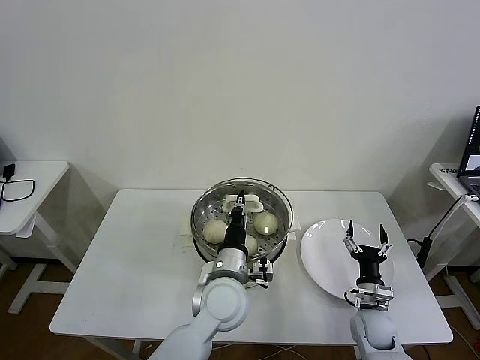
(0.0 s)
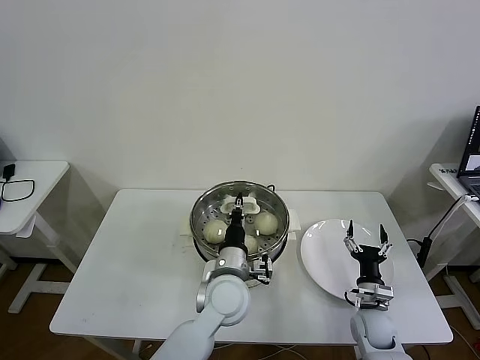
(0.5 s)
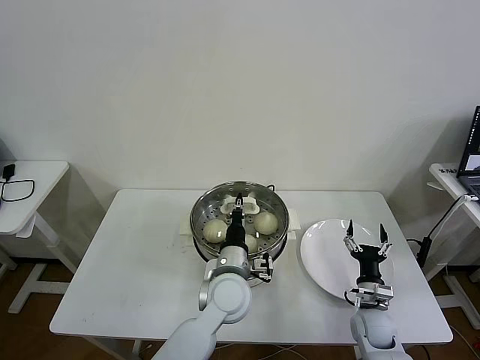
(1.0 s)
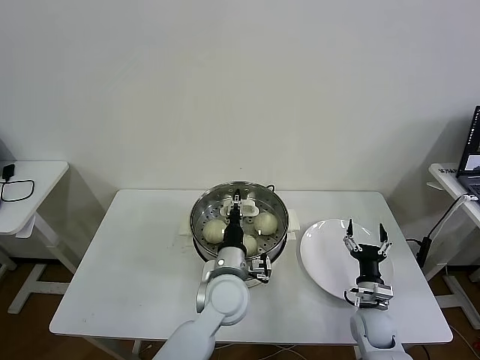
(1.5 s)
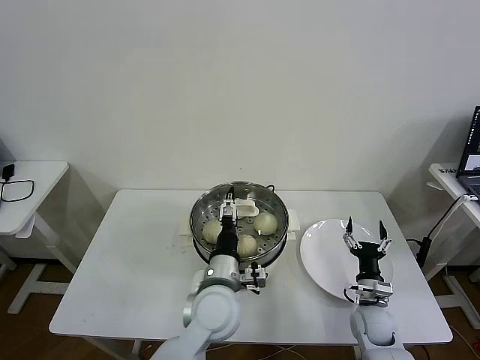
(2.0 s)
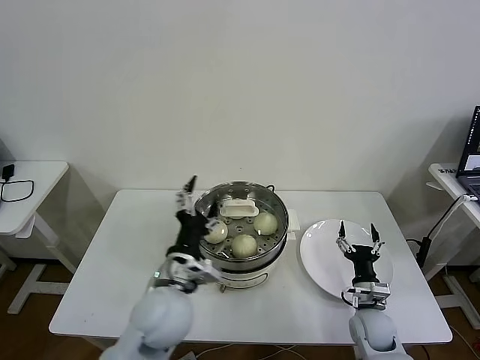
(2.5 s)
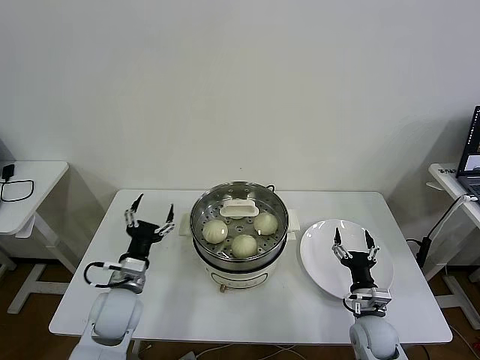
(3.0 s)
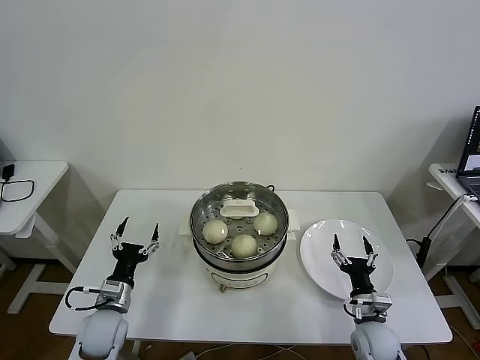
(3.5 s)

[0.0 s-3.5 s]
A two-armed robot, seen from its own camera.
Task of the whole recording: take steamed baozi put them in steamer then cover it.
0.0 to 2.0 s: The left gripper opens its fingers.
2.0 to 3.5 s: The left gripper goes some 25 cm to the left.

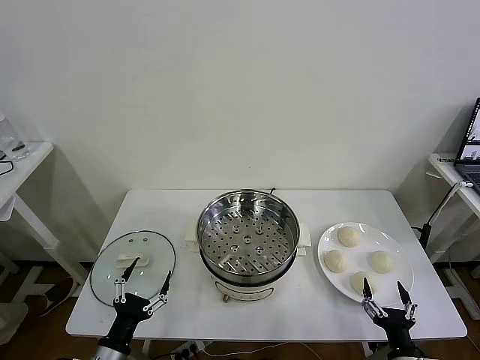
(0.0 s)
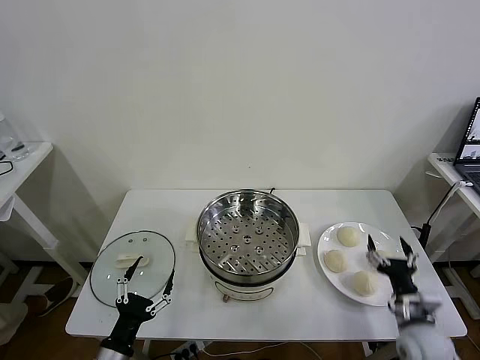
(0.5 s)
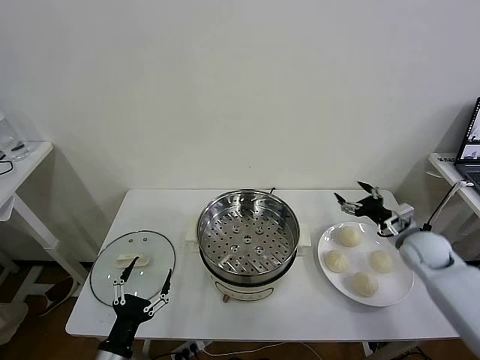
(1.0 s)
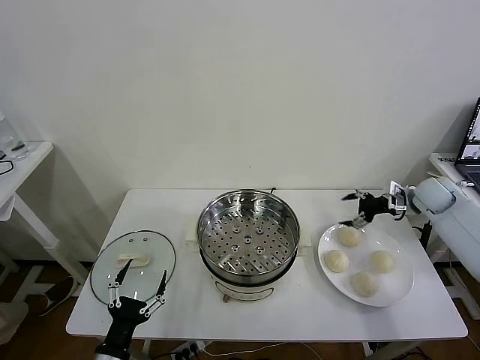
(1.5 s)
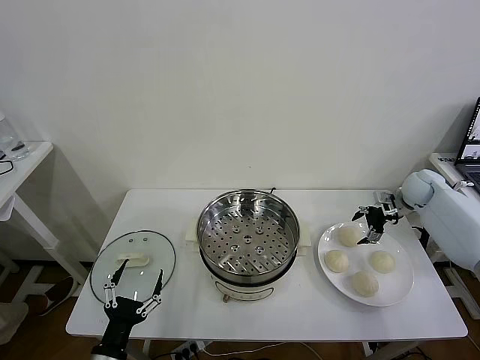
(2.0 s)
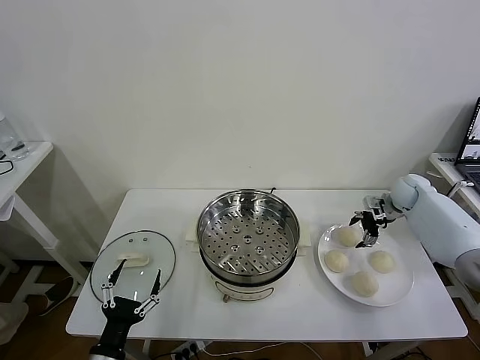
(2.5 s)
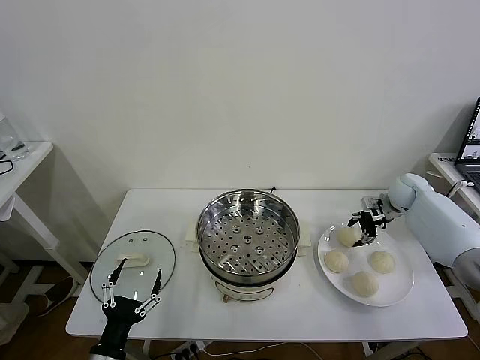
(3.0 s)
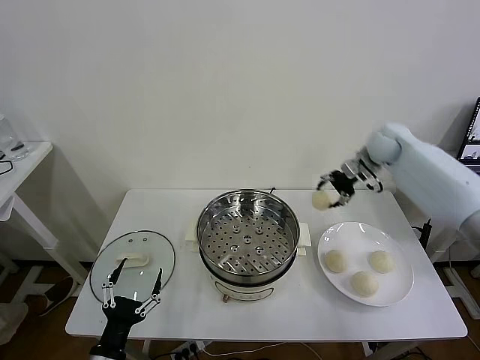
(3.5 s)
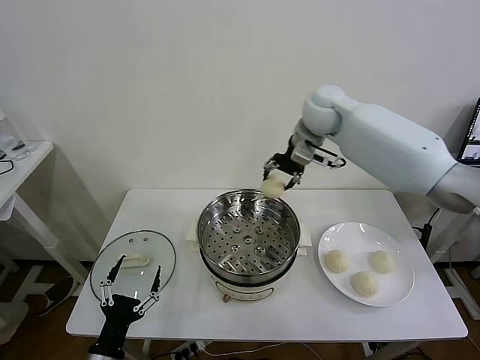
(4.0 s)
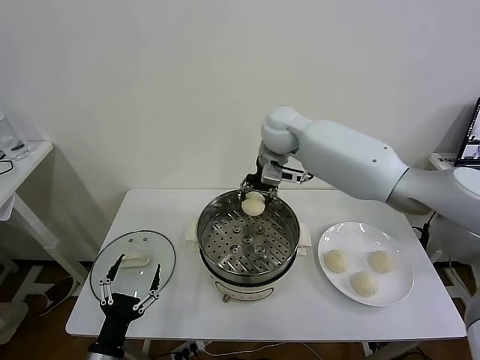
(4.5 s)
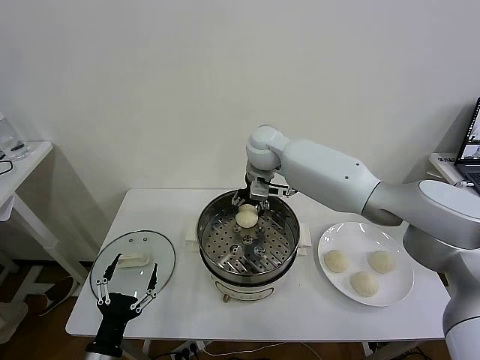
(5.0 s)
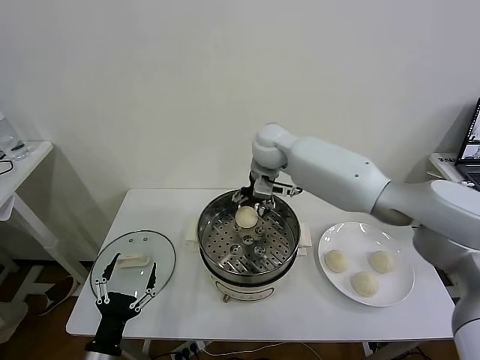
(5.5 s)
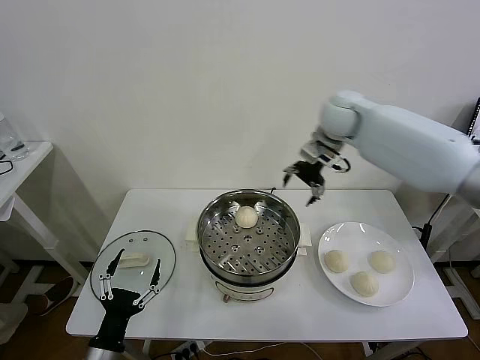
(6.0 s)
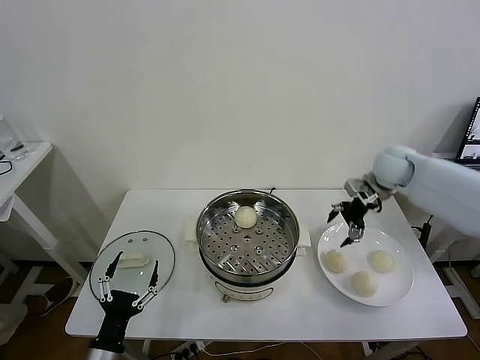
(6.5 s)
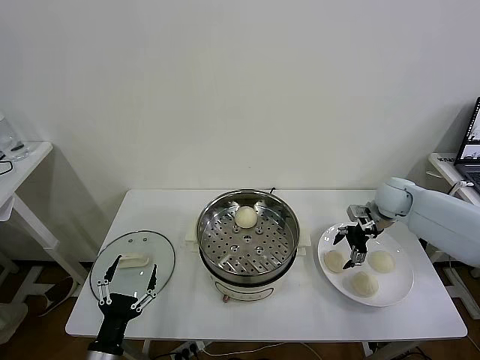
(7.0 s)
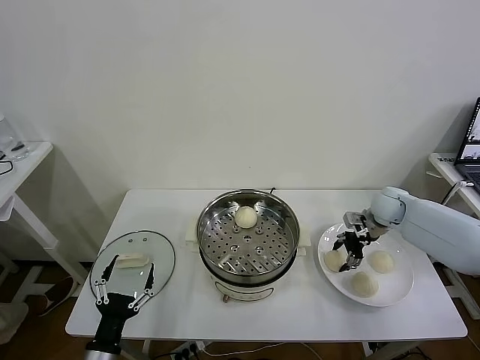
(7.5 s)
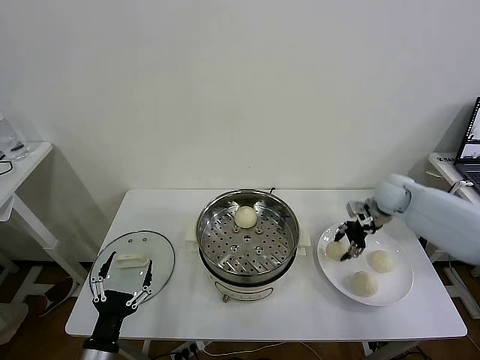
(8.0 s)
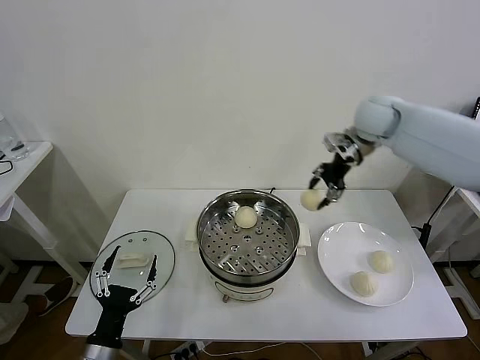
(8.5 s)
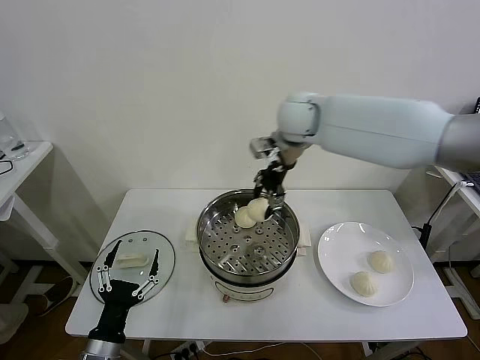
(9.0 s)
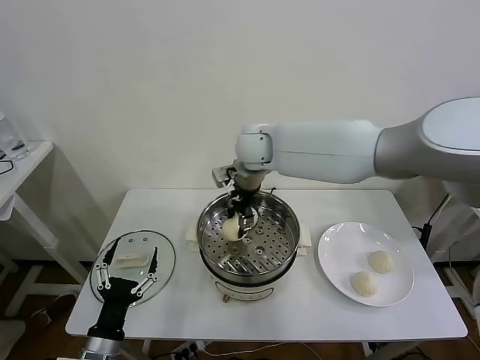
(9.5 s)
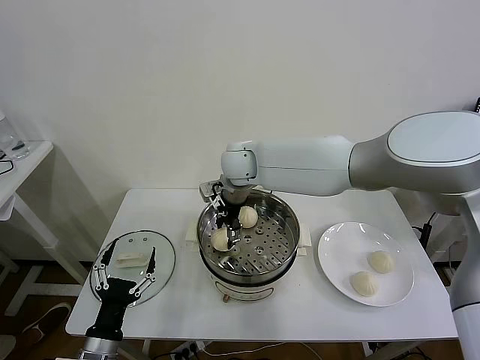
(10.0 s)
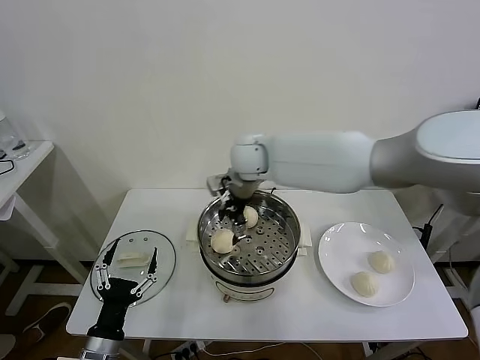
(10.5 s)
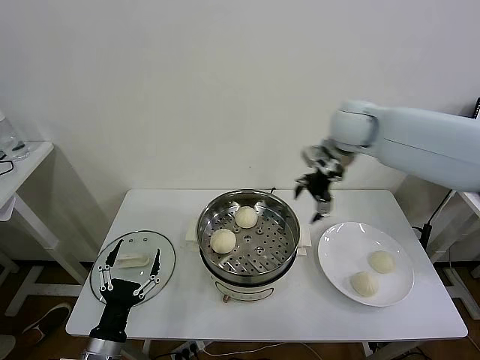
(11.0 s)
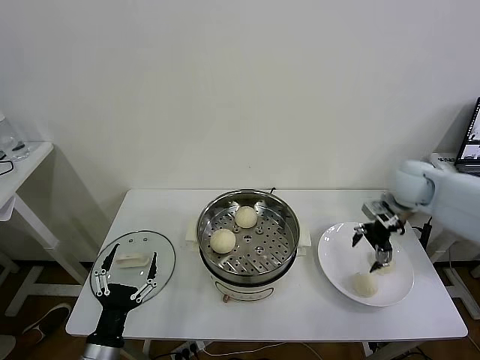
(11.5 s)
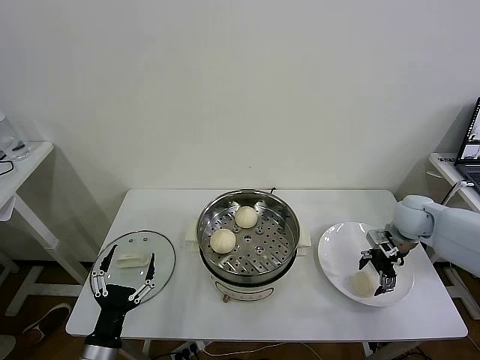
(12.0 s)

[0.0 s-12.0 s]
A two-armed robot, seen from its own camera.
Task of the whole recording: take steamed baozi put them in steamer then cover it.
Step, 0.0 to 2.5 s: Grasp the baozi in the plate with right gripper.
Step, 3.0 to 5.0 s: Place the baozi on the steamer with right gripper.
Step, 5.5 to 7.5 s: Grasp the baozi in the plate with right gripper.
Step, 8.0 to 10.0 s: Place the baozi on the steamer with right gripper.
2.0 to 4.0 s: The right gripper is displaced to the left and upward by some 40 cm, and closes up.
4.0 to 6.0 s: The right gripper is displaced to the right by approximately 10 cm, and opens its fingers.
6.0 to 8.0 s: The right gripper moves downward and to the right, some 20 cm, and closes its fingers.
8.0 to 10.0 s: The right gripper is displaced to the left by some 40 cm, and opens.
10.0 to 12.0 s: The right gripper is displaced to the right by roughly 40 cm, and opens up.

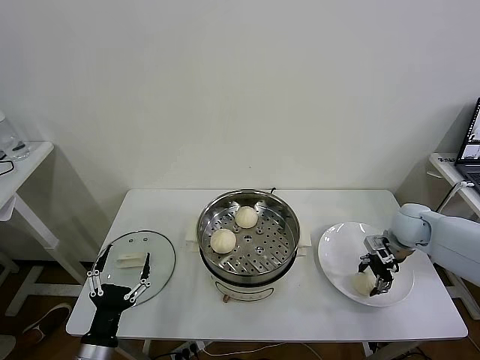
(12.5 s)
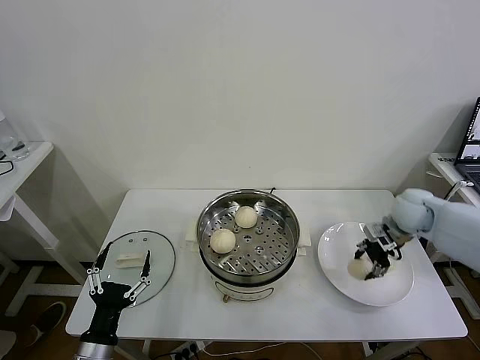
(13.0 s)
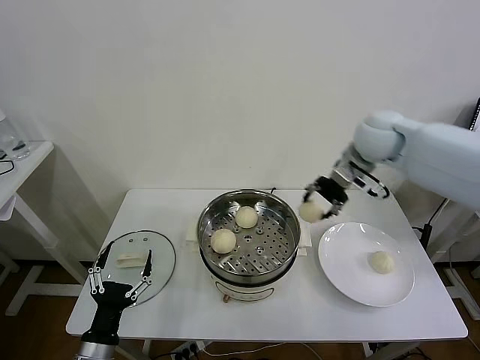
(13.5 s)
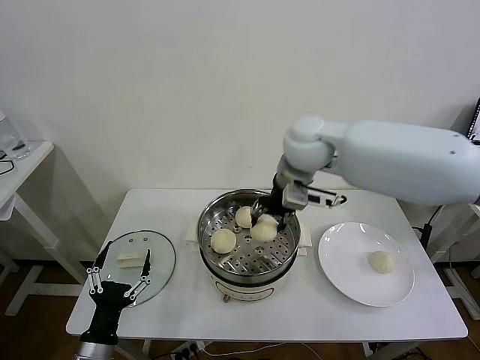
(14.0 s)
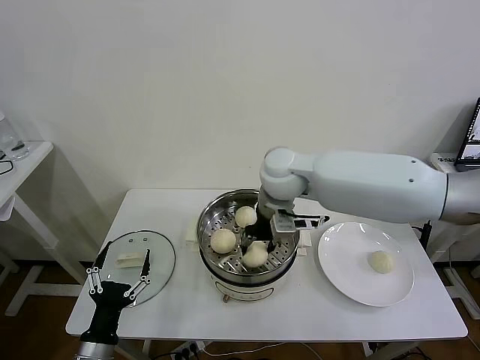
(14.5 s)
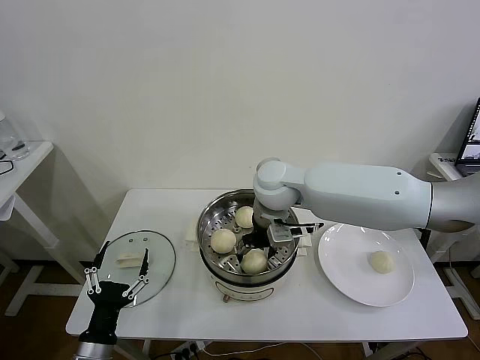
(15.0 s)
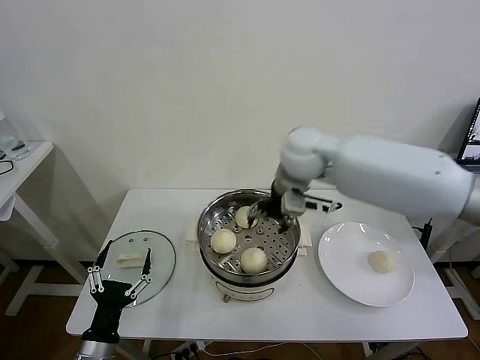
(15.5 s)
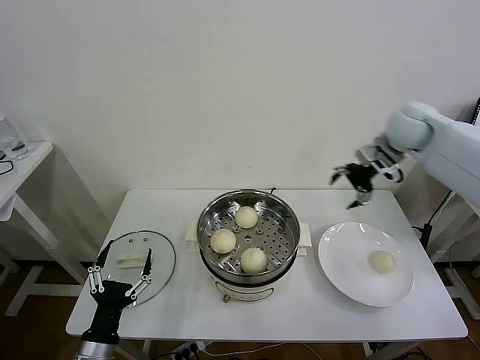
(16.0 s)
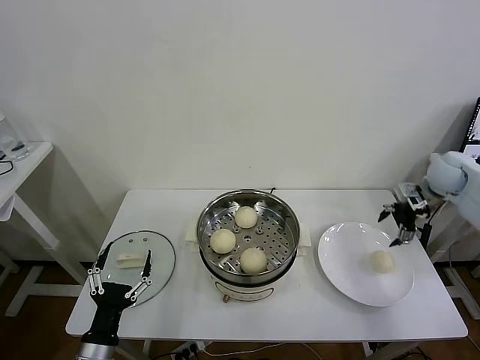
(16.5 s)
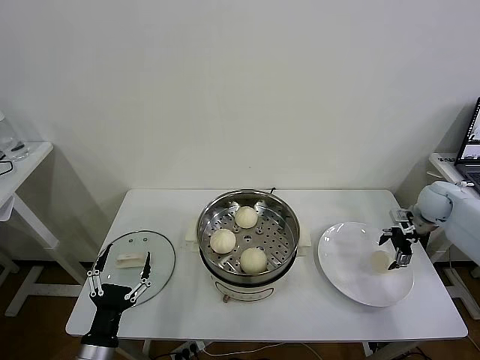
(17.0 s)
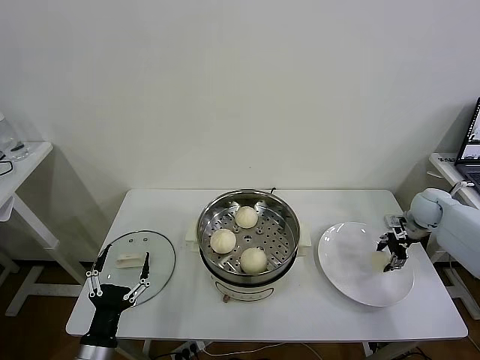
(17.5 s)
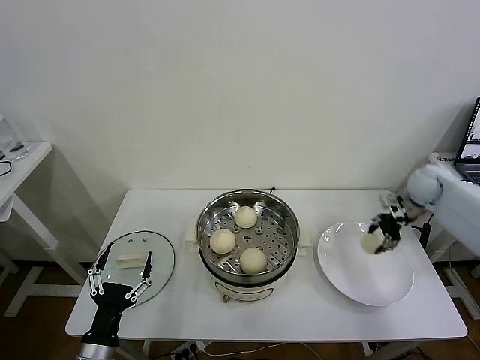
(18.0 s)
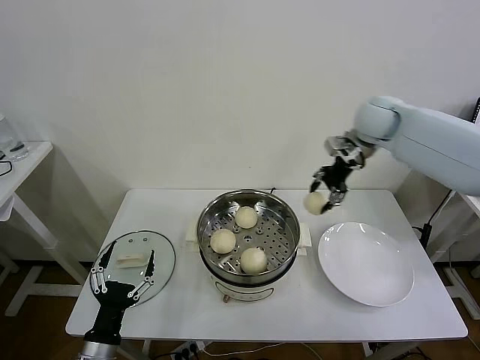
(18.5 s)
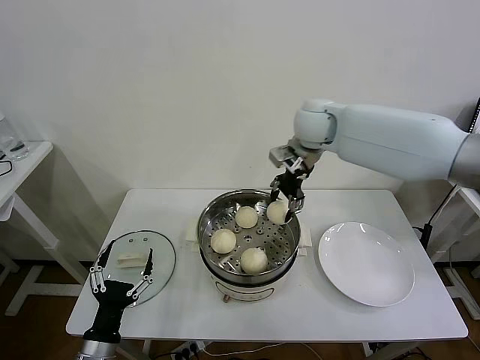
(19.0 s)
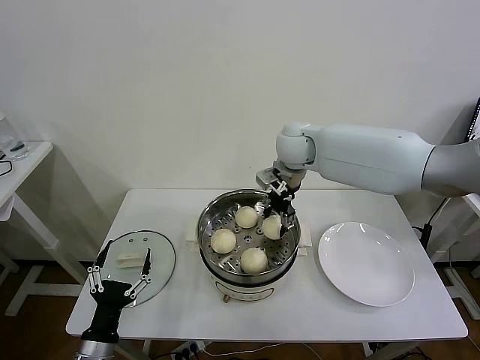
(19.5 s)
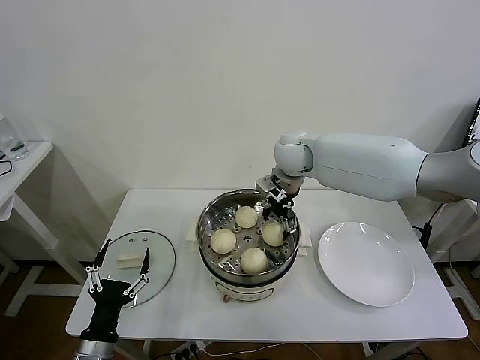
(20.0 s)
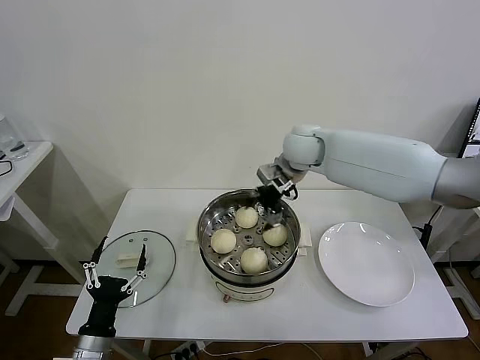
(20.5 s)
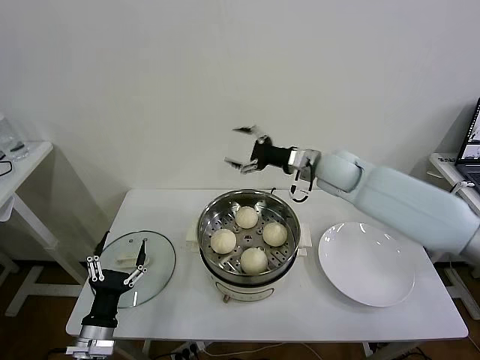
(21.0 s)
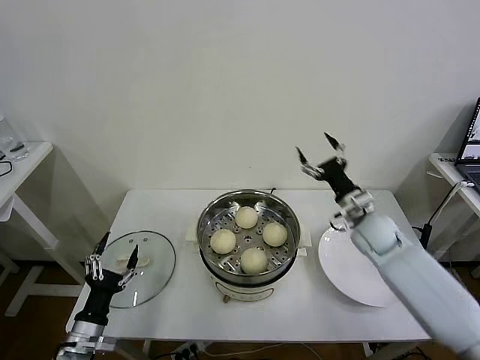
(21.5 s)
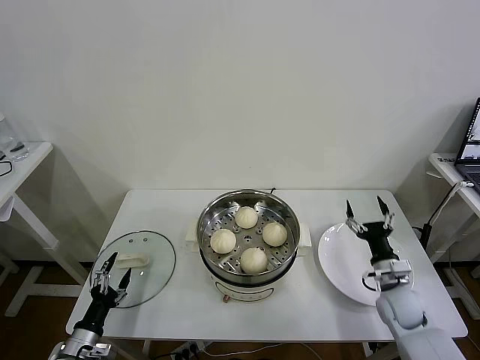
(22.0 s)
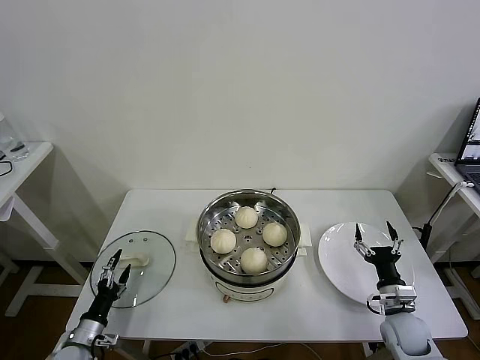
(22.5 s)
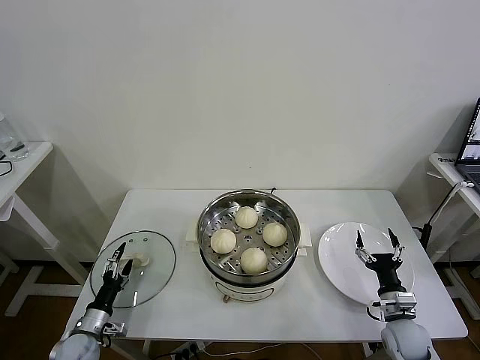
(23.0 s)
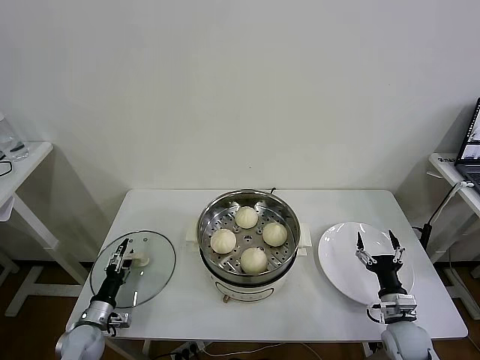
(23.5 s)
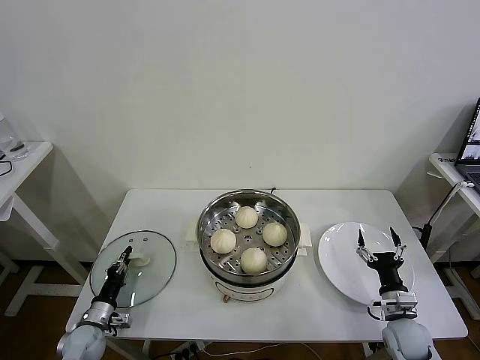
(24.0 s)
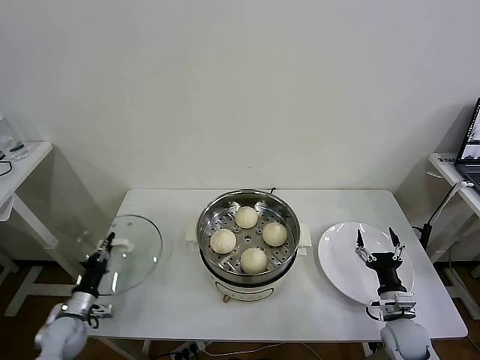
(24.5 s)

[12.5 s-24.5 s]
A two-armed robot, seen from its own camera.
Task of the whole recording: take steamed baozi put them in steamer then cover it.
Step, 13.0 to 15.0 s: Place the baozi on the steamer with right gripper.
Step, 15.5 to 17.5 s: Grasp the baozi in the plate with right gripper.
Step, 18.0 to 20.0 s: Place the baozi on the steamer with right gripper.
Step, 20.5 to 24.0 s: Grasp the pot lid with left gripper.
12.5 to 14.5 s: The right gripper travels to the left and upward by about 35 cm.
14.5 to 16.5 s: The right gripper moves to the right, some 40 cm, and opens.
16.5 to 18.5 s: The right gripper travels to the left and upward by some 25 cm, and closes up.
18.5 to 20.5 s: The right gripper shifts some 15 cm to the left and downward, and opens.
20.5 to 22.5 s: The right gripper shifts about 50 cm downward, backward and to the right, while the left gripper moves downward, to the left and forward, roughly 15 cm.
22.5 to 24.5 s: The left gripper is displaced forward by approximately 5 cm, and closes its fingers.
